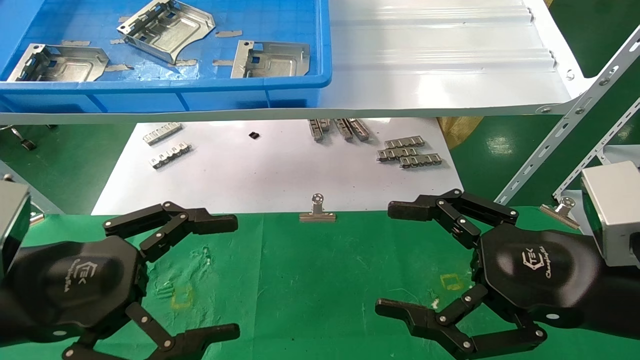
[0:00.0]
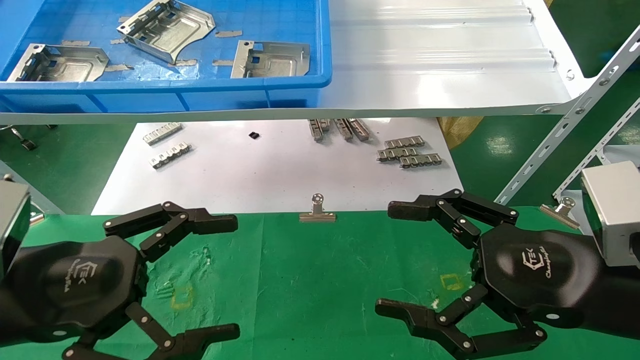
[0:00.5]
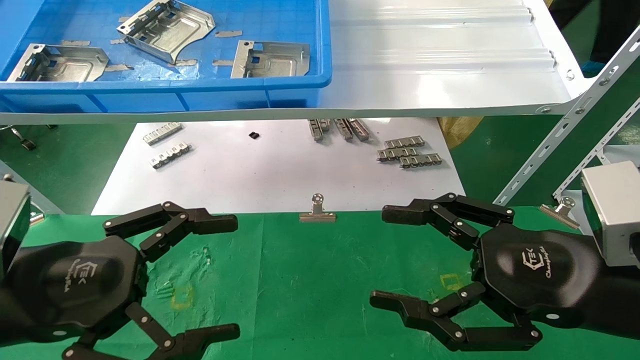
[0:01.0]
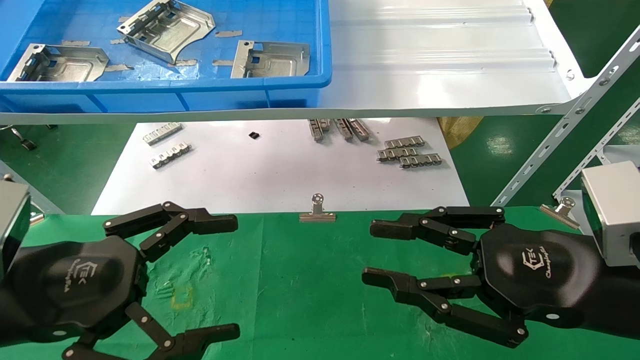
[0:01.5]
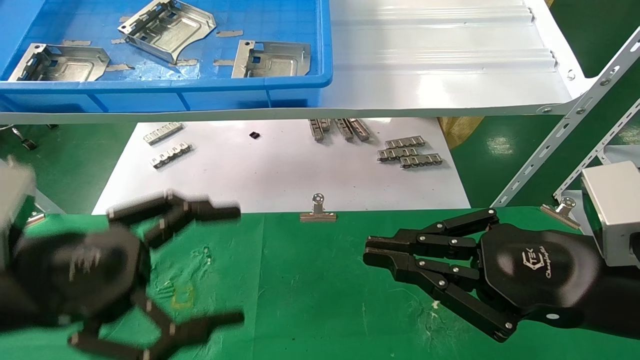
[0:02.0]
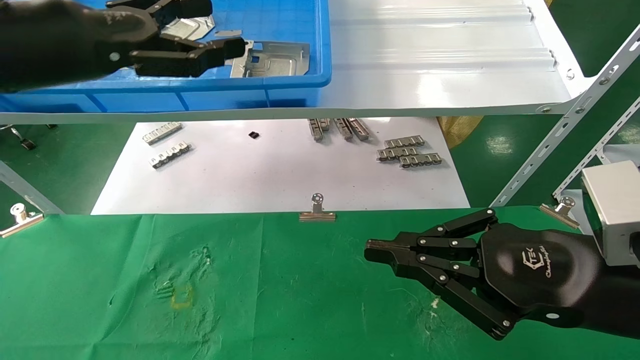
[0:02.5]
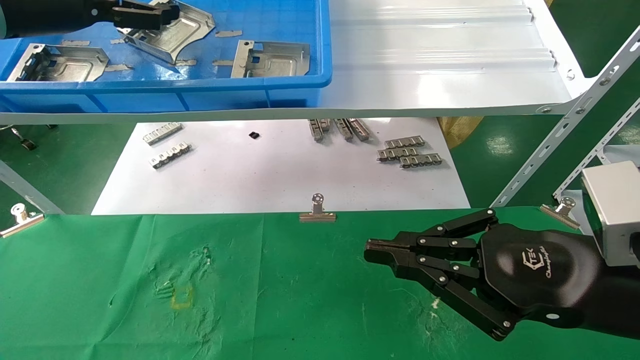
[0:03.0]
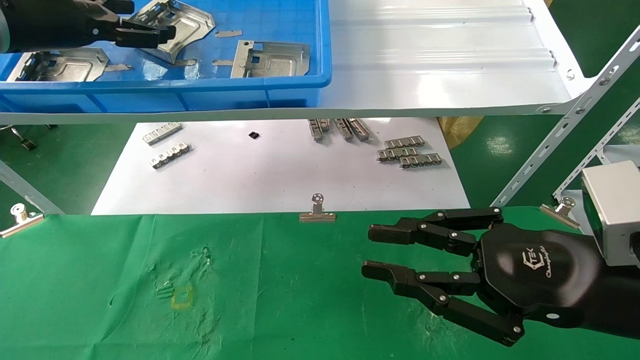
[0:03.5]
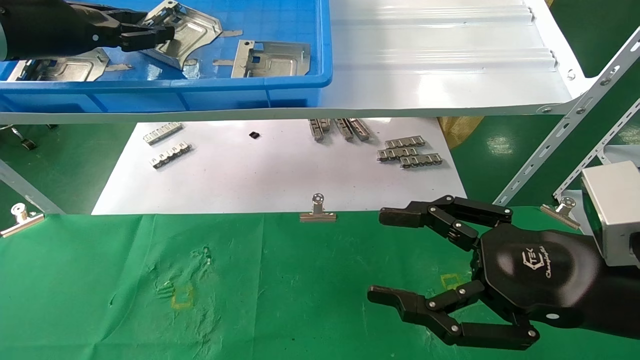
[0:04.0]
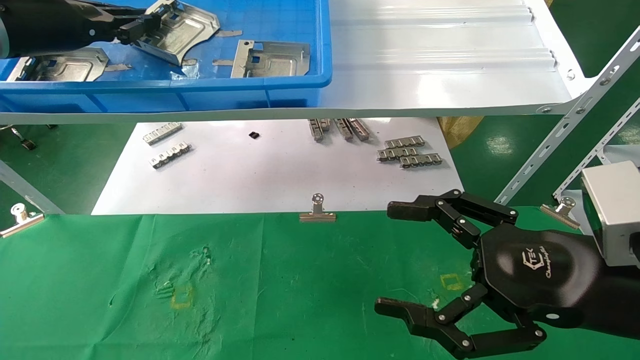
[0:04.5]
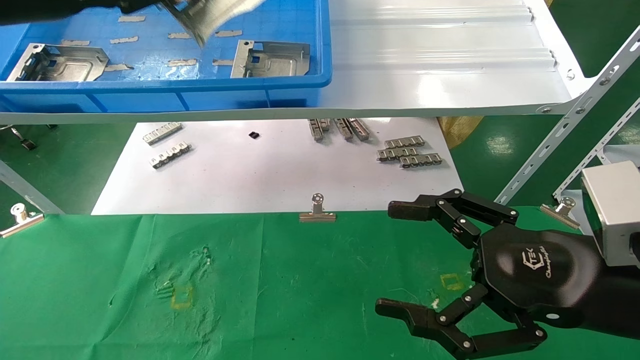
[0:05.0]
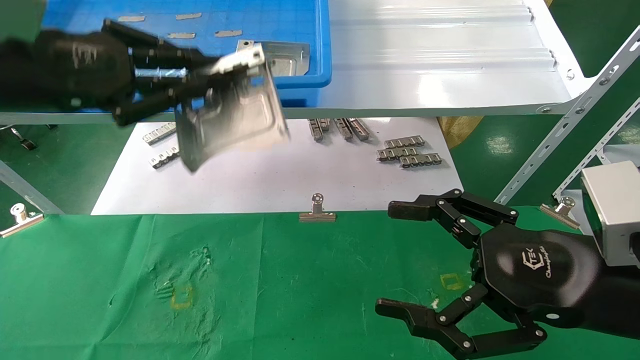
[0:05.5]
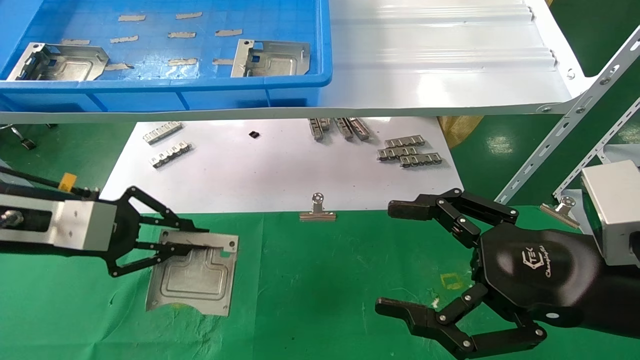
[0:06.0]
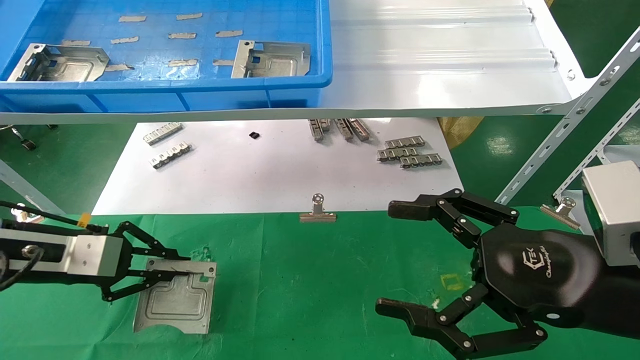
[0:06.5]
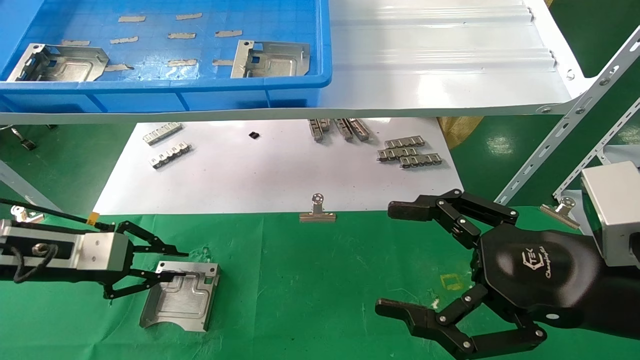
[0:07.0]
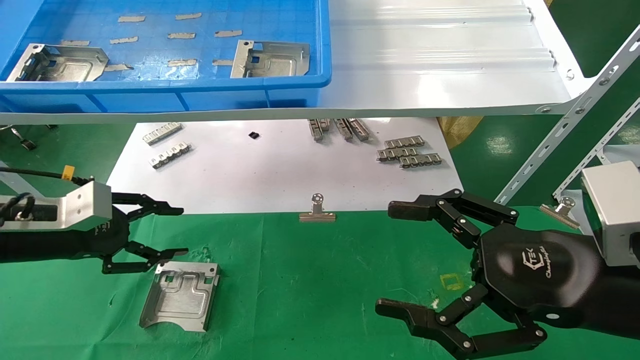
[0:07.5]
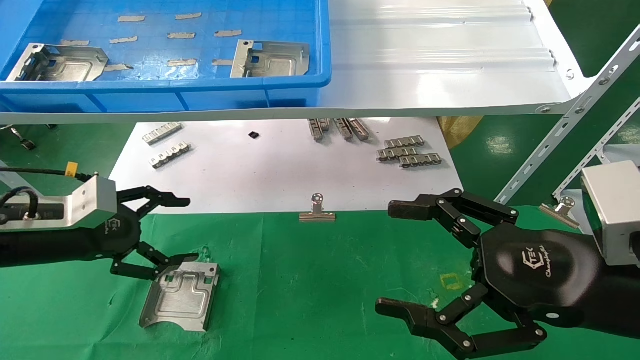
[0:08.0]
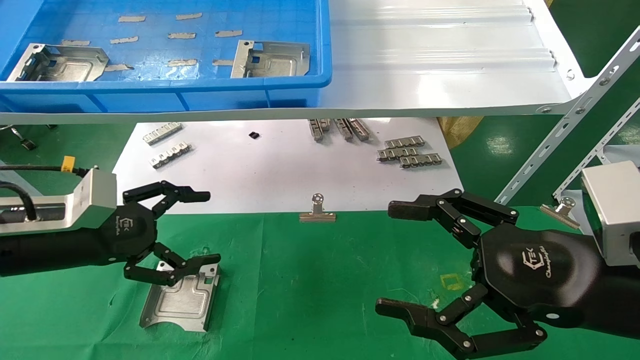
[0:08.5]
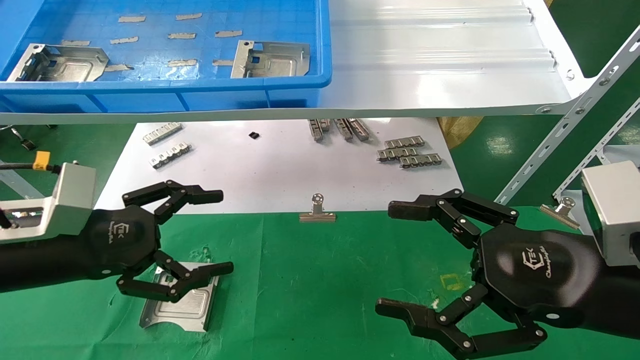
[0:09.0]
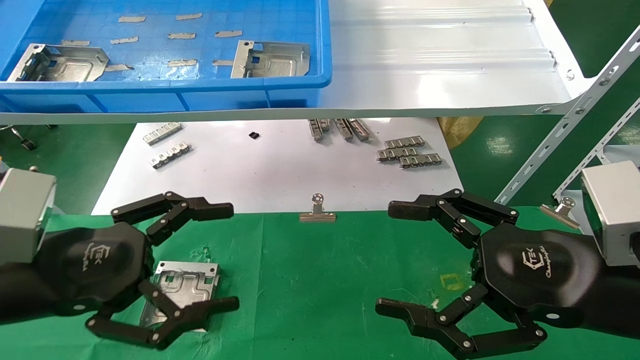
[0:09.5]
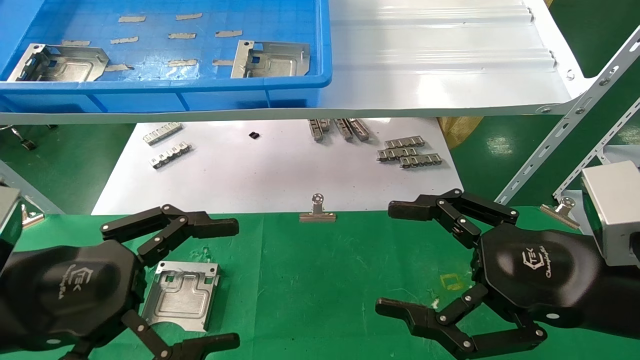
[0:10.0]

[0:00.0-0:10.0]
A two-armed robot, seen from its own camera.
Task of the whole recording: use the mechanical arm to pick up the parts and place them on the table.
Step, 0:02.5 to 0:04.5: Pick up the hard drive bracket from the feeding area.
Step, 0:05.0 to 0:07.0: Place the hard drive bracket into the box.
0:00.0 to 0:02.0: The right gripper closes up.
0:02.0 to 0:04.0: The left gripper shifts about 25 cm forward and upward, and closes up. The right gripper opens its fingers.
0:04.0 to 0:06.0: The left gripper moves downward and backward, some 20 cm, and closes; the right gripper opens.
0:06.0 to 0:08.0: The left gripper goes about 5 cm downward, and opens its fingers.
0:08.0 to 0:10.0: The left gripper goes roughly 15 cm backward and to the right.
